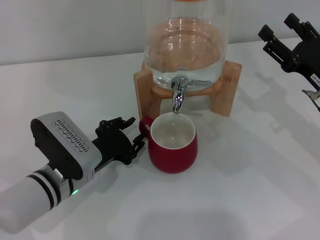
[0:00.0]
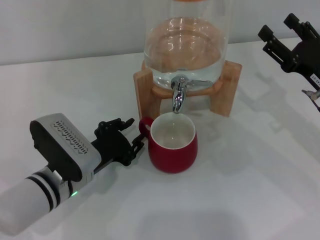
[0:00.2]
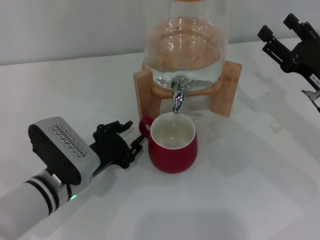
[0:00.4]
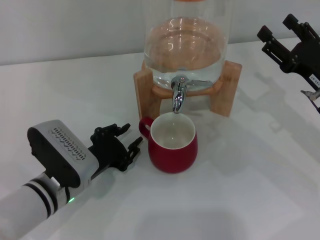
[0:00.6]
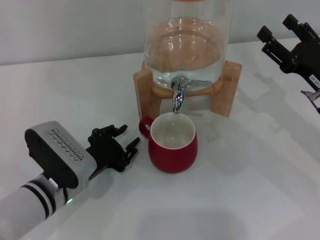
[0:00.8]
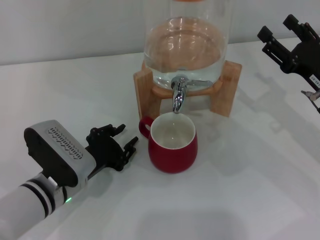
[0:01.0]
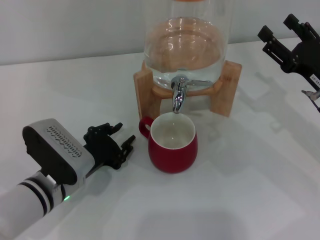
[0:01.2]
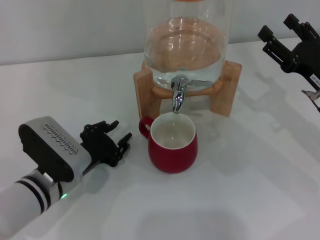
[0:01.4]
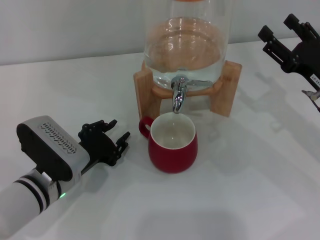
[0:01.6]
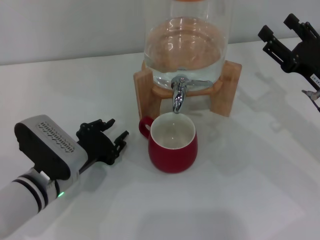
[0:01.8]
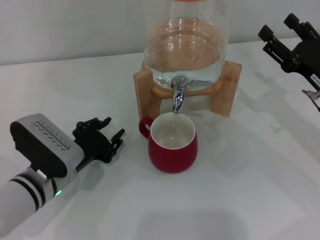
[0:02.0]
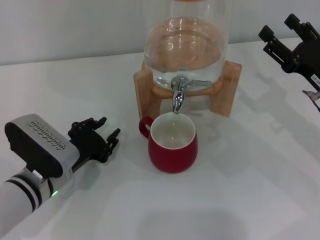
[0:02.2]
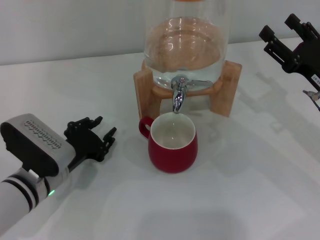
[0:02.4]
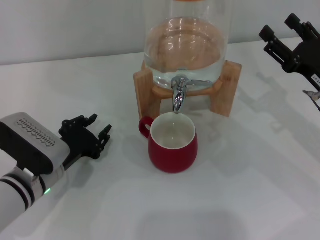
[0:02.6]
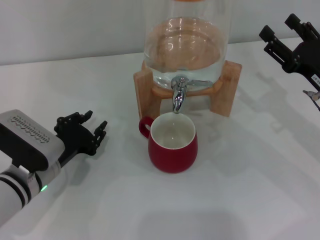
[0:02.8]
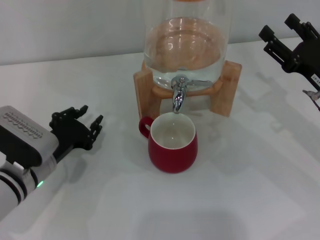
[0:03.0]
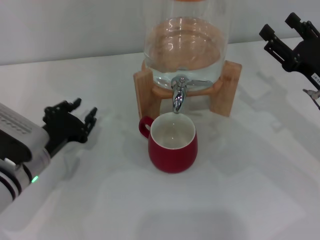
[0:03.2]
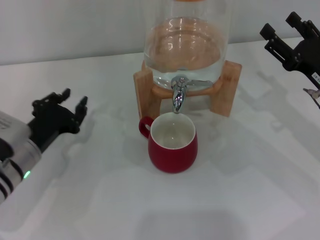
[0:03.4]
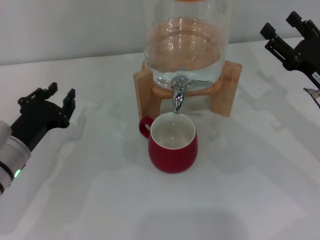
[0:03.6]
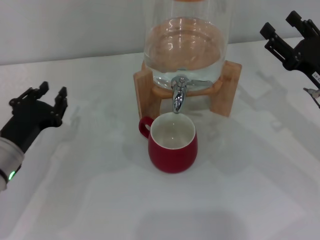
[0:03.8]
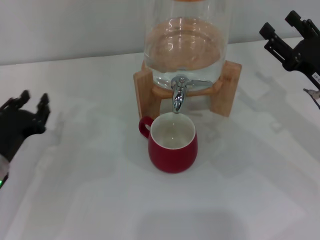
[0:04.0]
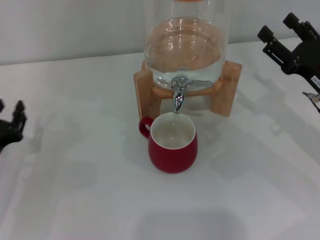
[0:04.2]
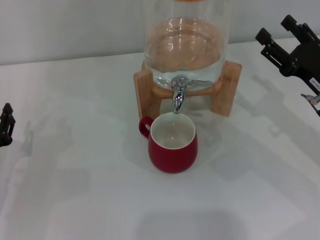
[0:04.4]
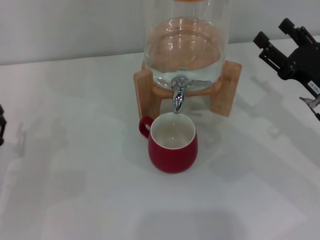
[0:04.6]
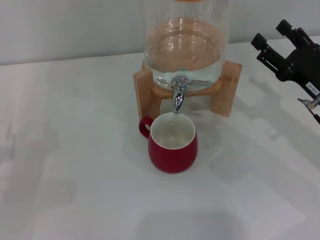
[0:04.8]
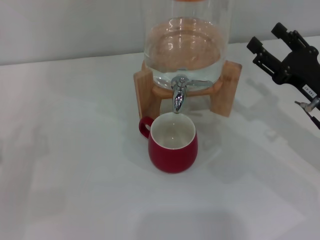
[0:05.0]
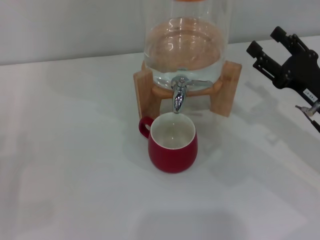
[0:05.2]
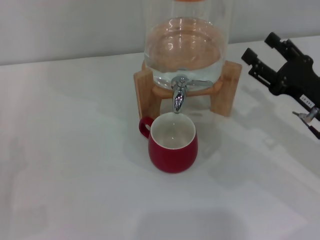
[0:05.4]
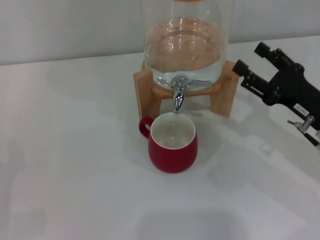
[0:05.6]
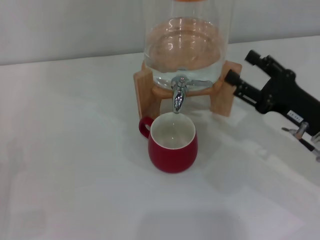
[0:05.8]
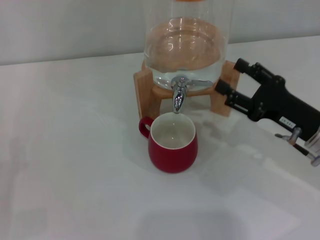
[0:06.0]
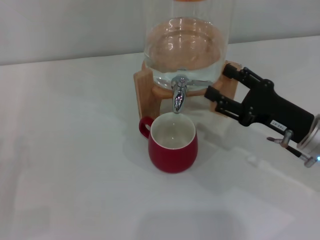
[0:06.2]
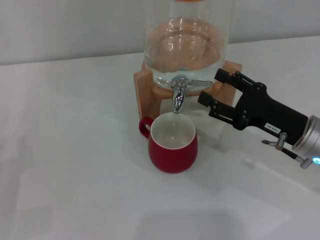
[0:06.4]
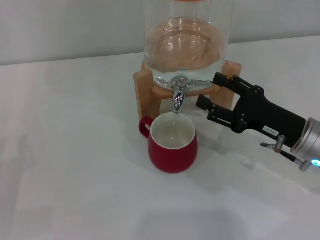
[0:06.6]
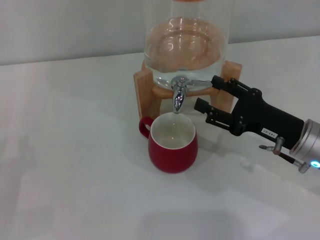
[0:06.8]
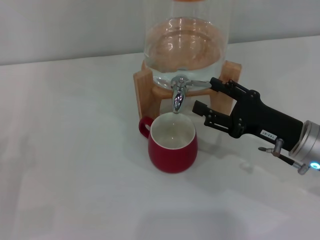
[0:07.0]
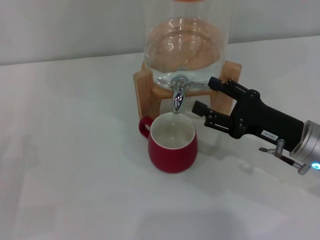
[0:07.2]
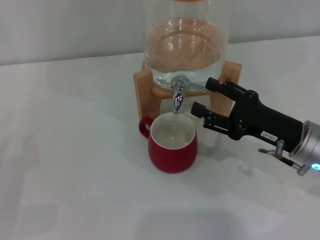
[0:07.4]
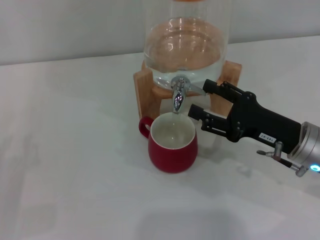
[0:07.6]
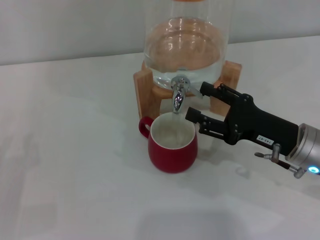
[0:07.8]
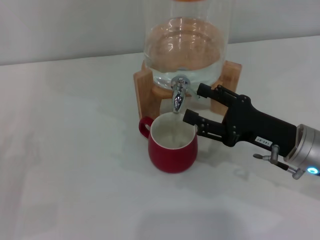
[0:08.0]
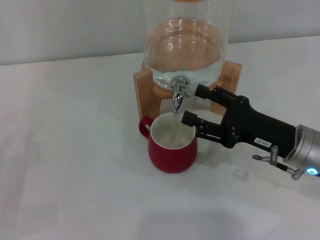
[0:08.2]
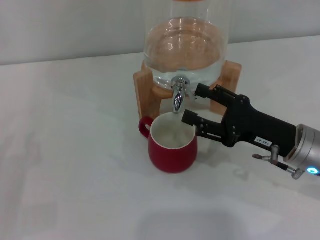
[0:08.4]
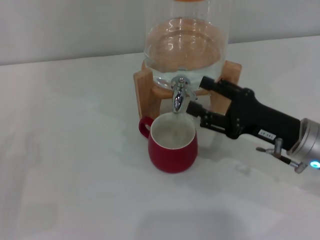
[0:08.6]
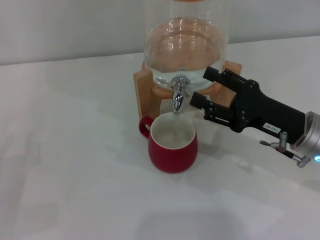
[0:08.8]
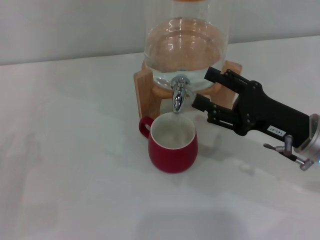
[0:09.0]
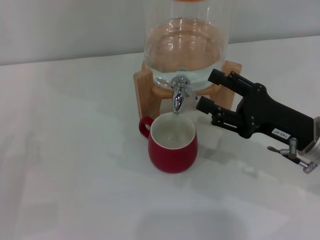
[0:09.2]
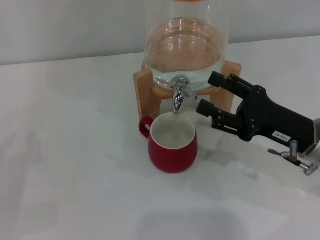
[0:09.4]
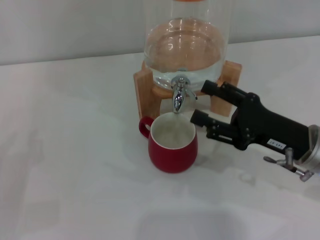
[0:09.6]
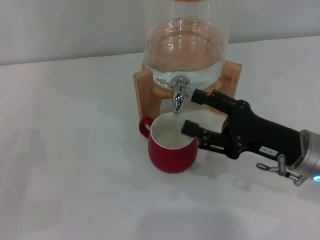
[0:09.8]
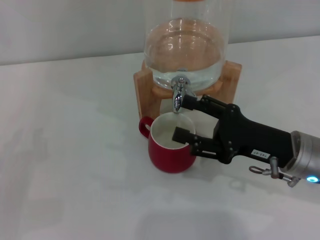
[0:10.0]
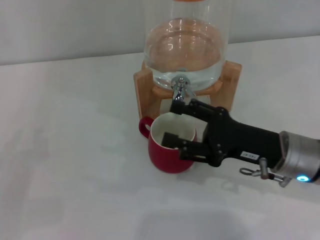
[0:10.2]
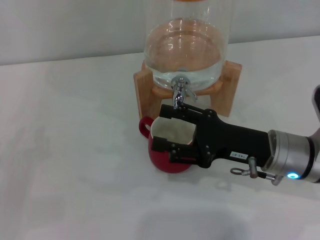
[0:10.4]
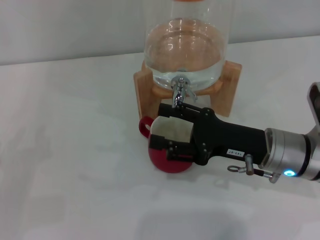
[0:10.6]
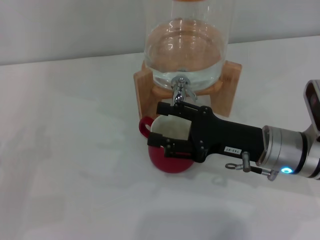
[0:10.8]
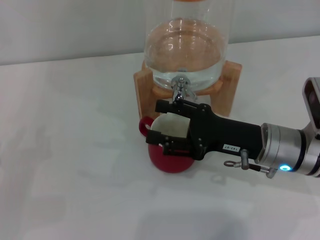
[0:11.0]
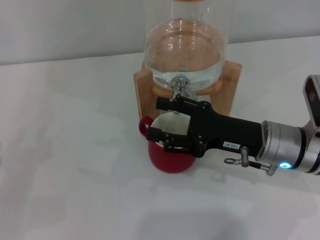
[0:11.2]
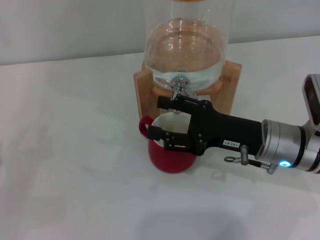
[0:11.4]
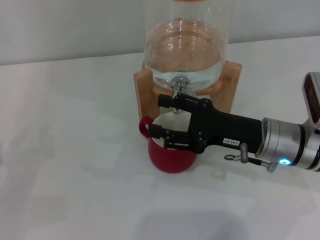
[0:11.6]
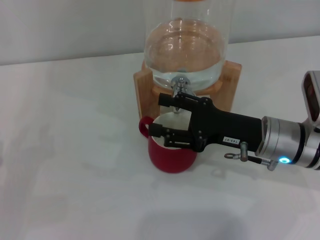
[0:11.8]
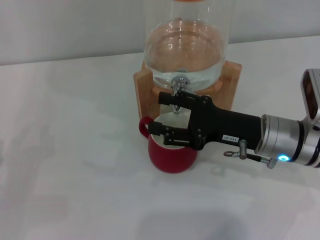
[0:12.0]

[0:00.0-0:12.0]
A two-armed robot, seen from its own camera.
Task of the whole recording: the left gripper pick up the red cup and place it horizontally under the faucet, the right gripper turn on the faucet to fill the cup, and then turn off the faucet.
Step, 0:01.4 to 0:09.2: Open the dispenser valve and fill the cup with water with the right gripper.
0:00.0 to 0:03.0: The grippers make only small movements.
0:03.0 to 0:04.4: The left gripper heads to the left, covering roughly 10 cm.
0:04.4 to 0:06.0: The left gripper heads to the left, covering approximately 5 cm.
0:06.0 to 0:09.0: The grippers stay close to where they were, moving slightly.
0:09.0 to 0:12.0: There are only small adjustments of the grippers.

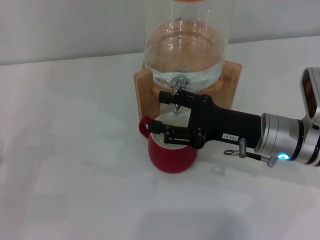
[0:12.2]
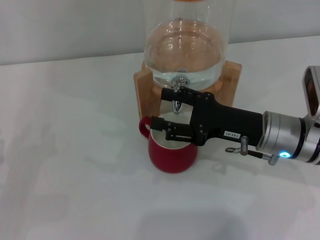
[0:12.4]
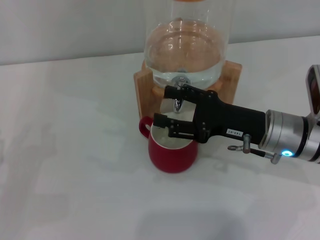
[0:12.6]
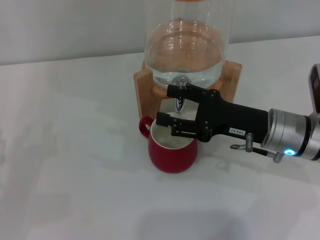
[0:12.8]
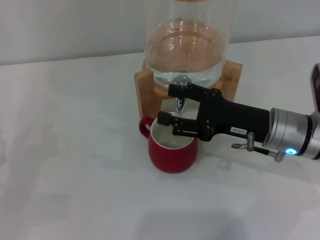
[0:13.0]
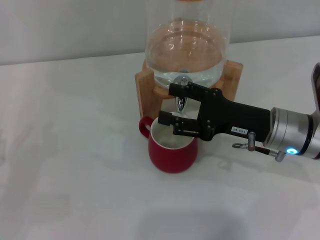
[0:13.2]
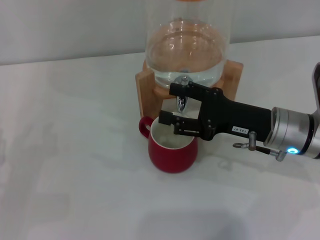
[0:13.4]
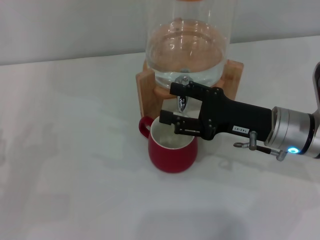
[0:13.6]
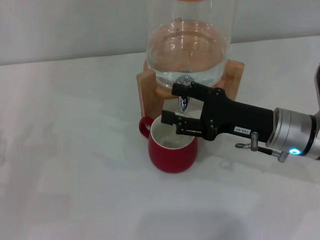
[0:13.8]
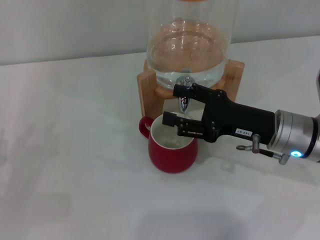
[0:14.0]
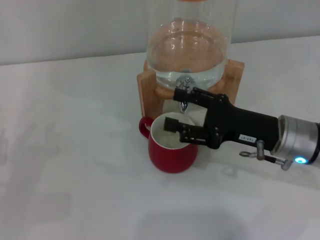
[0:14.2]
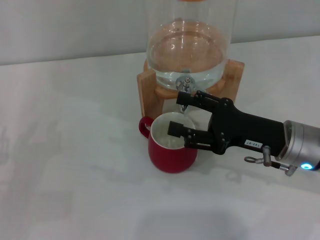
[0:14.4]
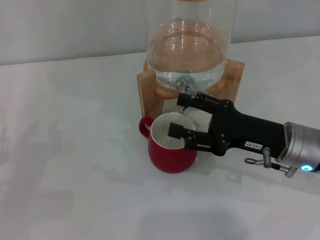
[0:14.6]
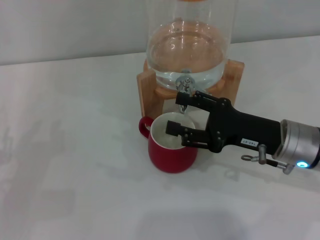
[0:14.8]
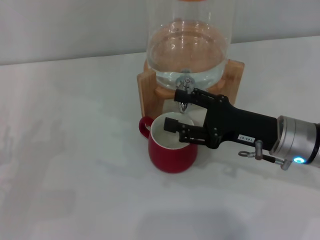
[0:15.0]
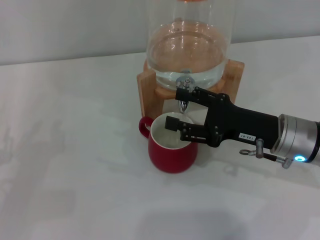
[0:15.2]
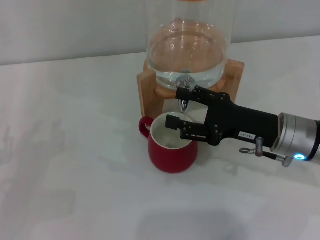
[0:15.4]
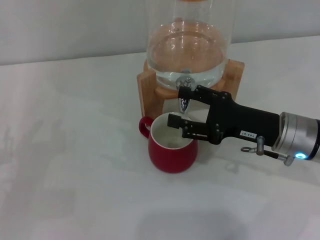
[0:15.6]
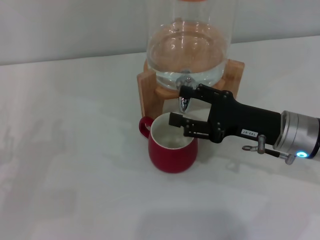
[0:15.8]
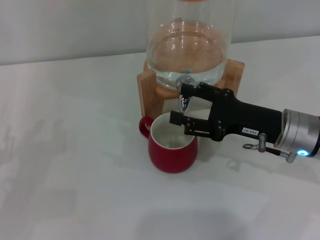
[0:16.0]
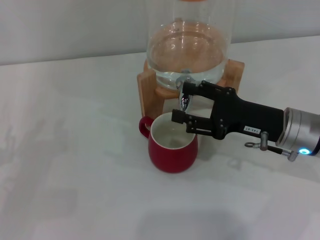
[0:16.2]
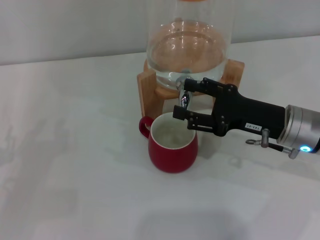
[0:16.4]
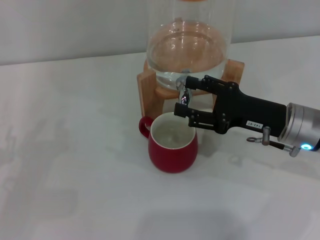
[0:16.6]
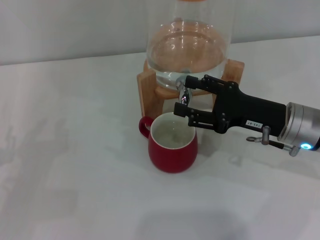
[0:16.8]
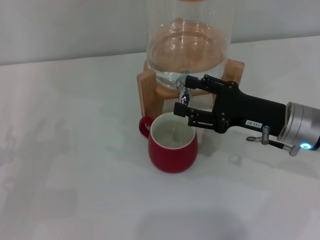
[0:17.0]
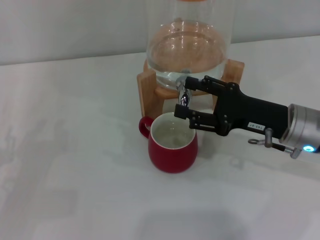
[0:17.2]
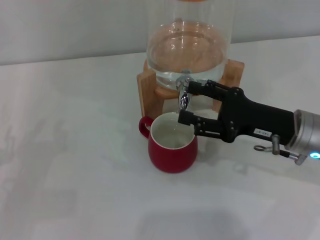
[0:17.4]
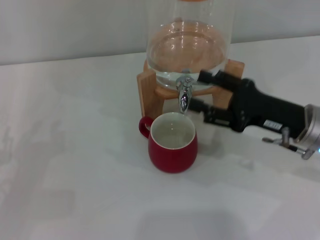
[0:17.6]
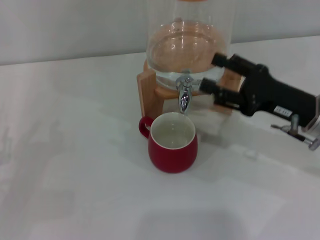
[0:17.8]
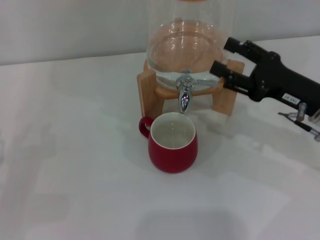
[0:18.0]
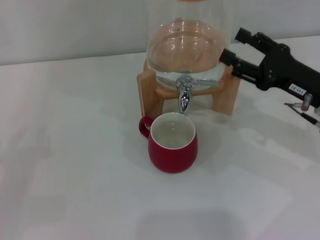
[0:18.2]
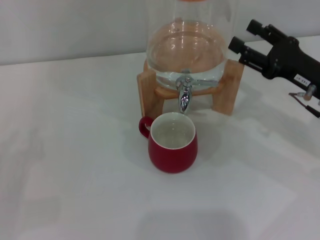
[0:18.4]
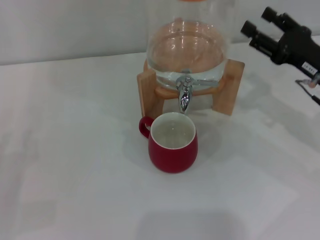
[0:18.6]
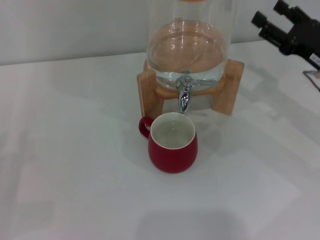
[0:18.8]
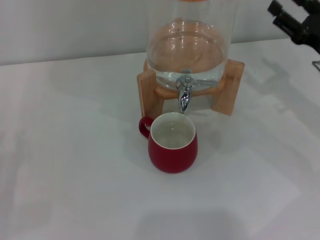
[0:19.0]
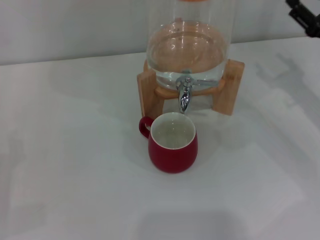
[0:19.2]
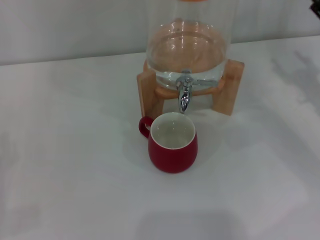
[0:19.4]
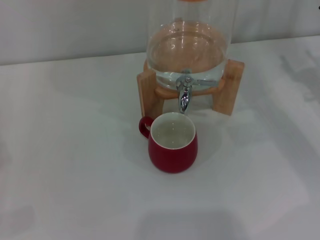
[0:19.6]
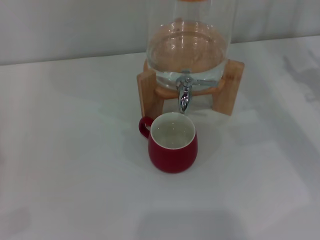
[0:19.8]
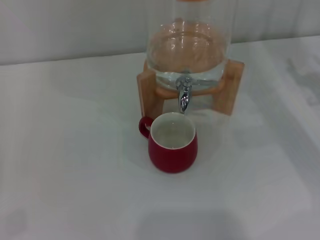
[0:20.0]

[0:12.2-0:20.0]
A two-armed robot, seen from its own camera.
Task of the whole recording: the left gripper pick up the red cup and place it horizontally under the faucet, the right gripper turn on the faucet to fill the cup, and then turn off the faucet.
Step, 0:12.2 to 0:17.6: Close the dispenser valve with the right gripper.
0:12.2 to 0:16.8: The grippers make only small movements.
0:16.8 to 0:18.4: The right gripper travels to the right by some 5 cm.
0:18.4 to 0:20.0: The right gripper moves to the right, some 5 cm.
